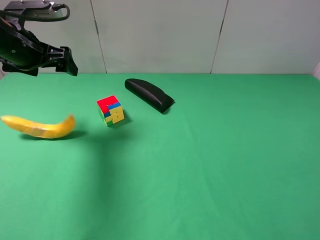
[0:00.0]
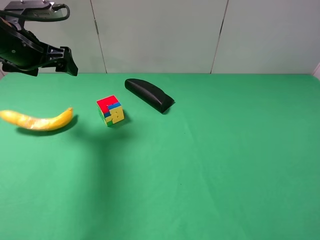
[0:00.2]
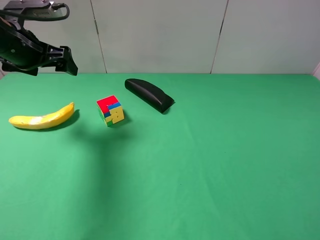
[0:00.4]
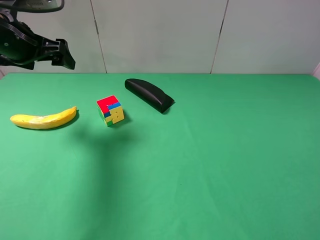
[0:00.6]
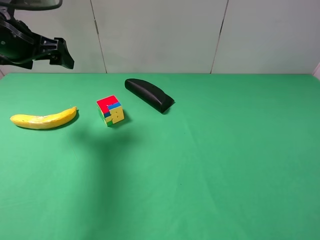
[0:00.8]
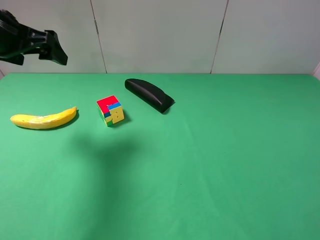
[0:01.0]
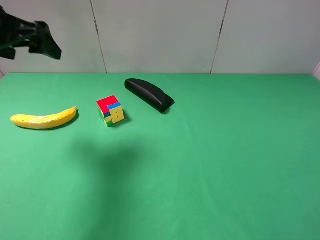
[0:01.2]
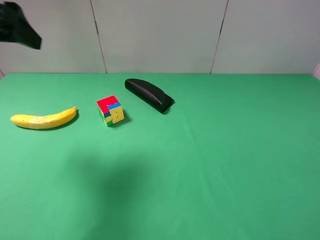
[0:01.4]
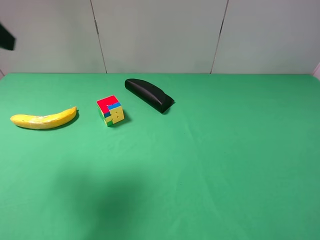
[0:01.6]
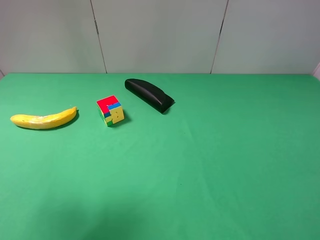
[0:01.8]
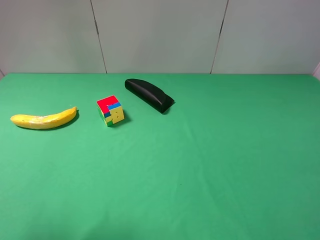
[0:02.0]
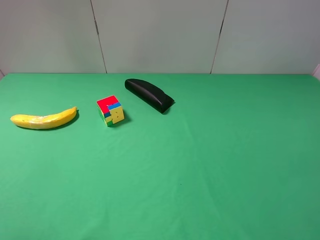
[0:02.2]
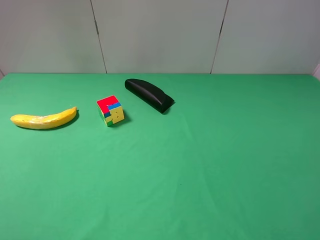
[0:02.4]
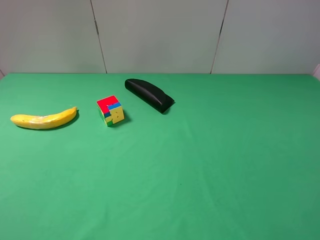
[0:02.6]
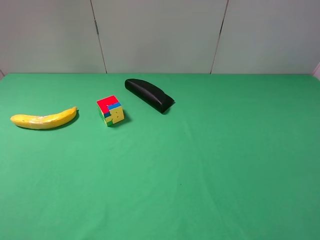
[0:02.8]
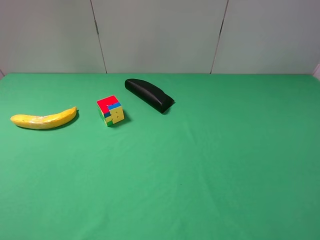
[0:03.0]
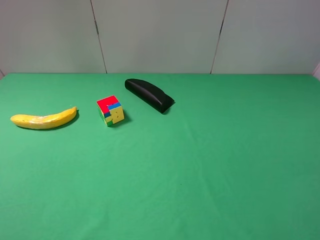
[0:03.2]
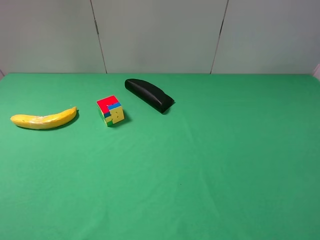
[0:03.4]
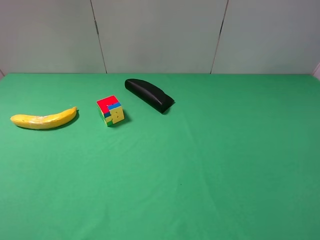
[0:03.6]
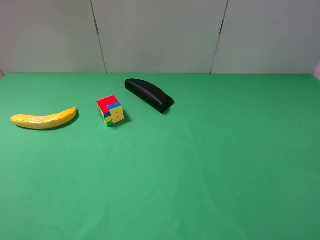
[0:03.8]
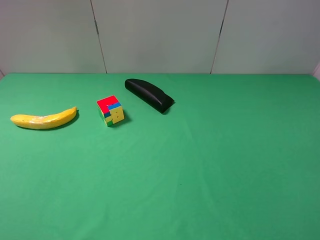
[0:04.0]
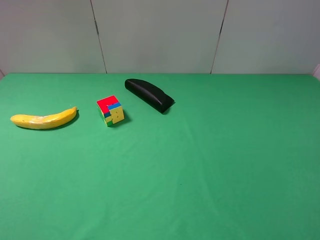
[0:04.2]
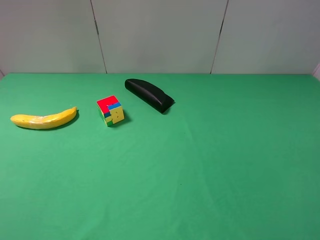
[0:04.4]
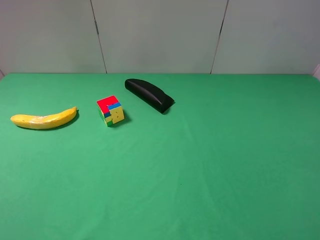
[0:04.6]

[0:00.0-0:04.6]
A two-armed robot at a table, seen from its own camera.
Task of the whole recording: use the right gripper to pick up the item and transfer it from the right gripper to the left gripper.
0:00.0 to 0:01.6: The left gripper moves backward and upward, some 20 cm.
0:01.6 to 0:03.0: The left gripper travels backward and downward by approximately 20 cm.
